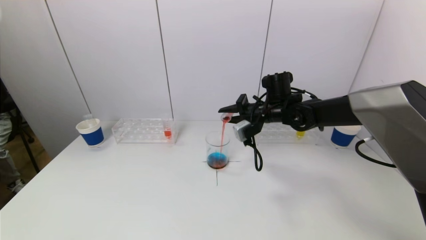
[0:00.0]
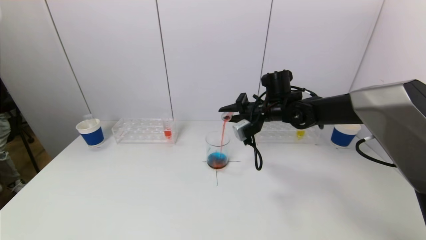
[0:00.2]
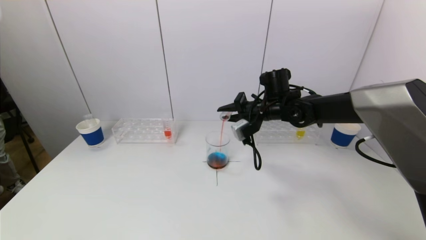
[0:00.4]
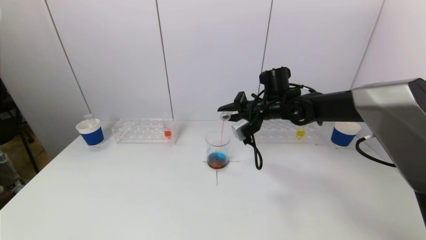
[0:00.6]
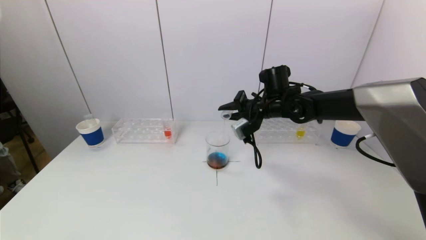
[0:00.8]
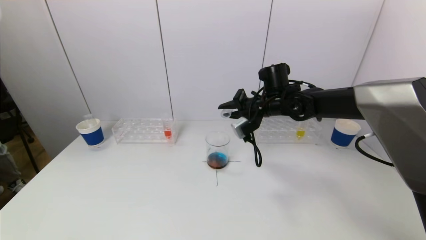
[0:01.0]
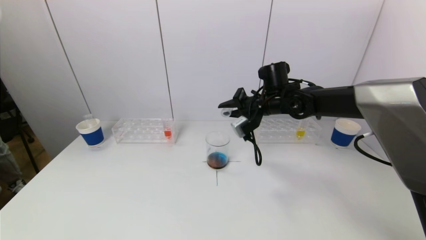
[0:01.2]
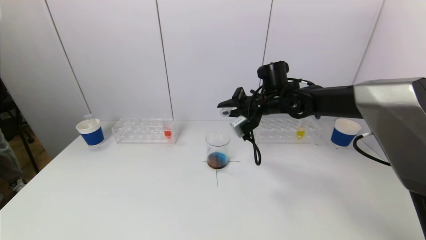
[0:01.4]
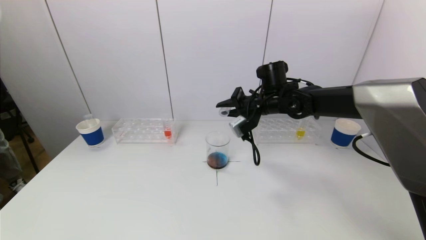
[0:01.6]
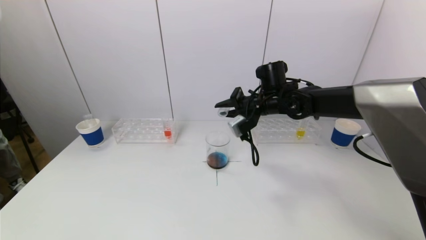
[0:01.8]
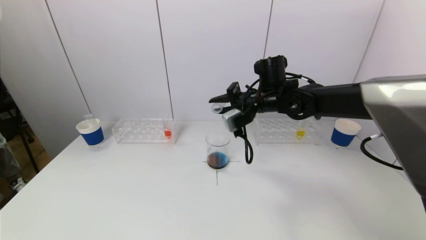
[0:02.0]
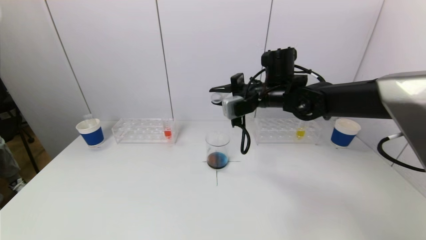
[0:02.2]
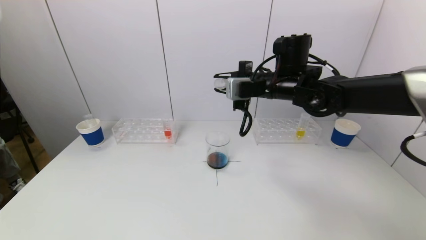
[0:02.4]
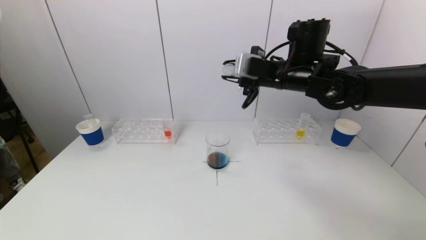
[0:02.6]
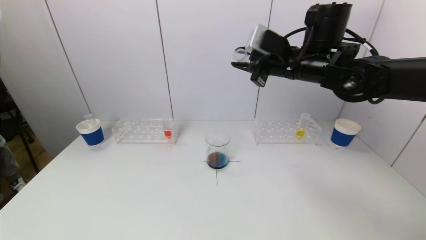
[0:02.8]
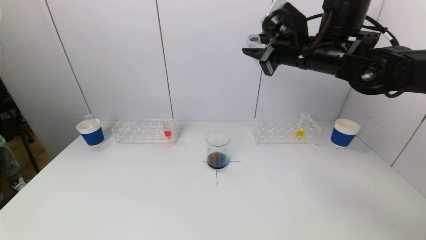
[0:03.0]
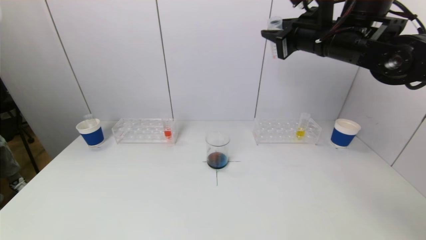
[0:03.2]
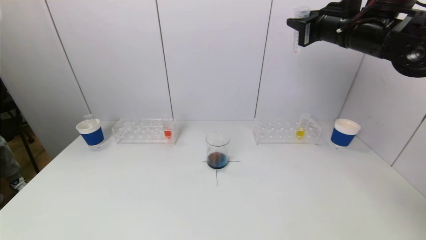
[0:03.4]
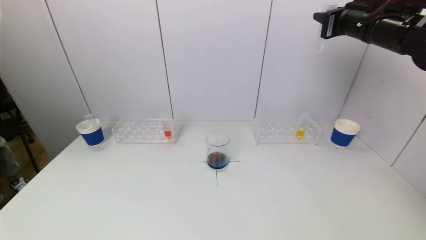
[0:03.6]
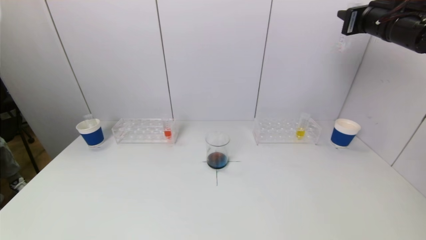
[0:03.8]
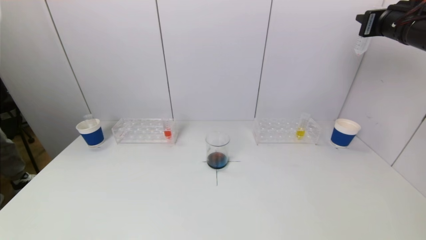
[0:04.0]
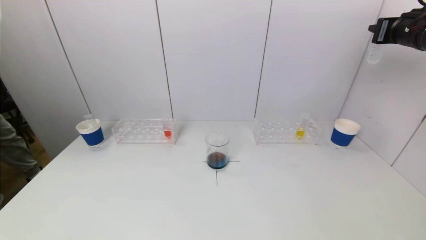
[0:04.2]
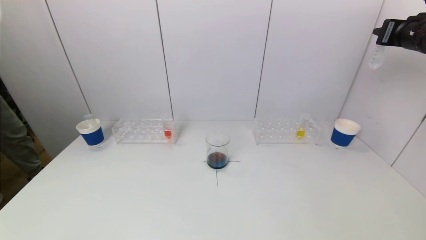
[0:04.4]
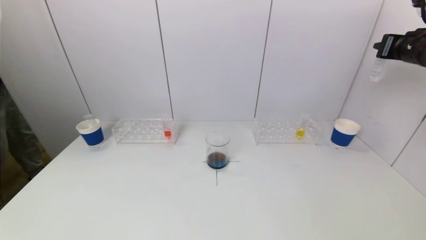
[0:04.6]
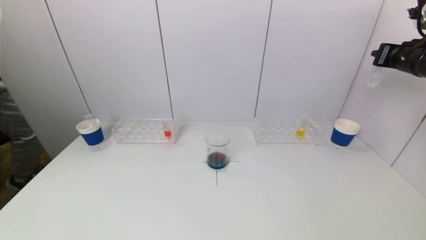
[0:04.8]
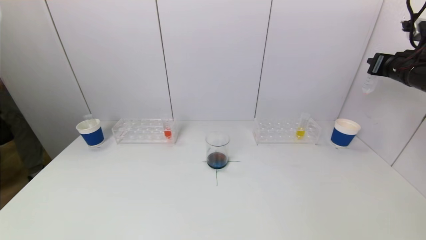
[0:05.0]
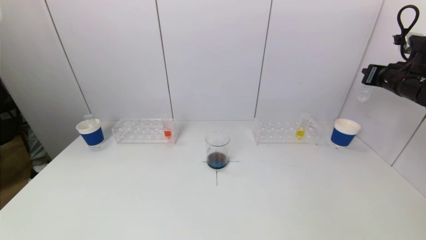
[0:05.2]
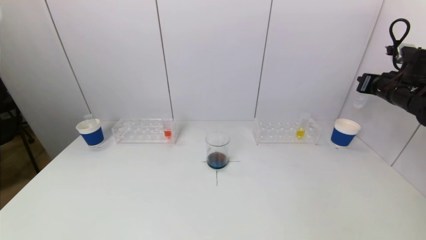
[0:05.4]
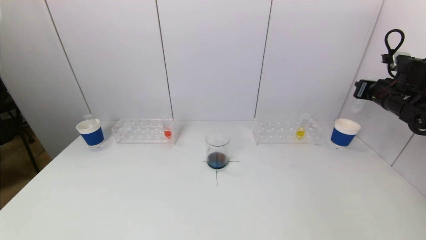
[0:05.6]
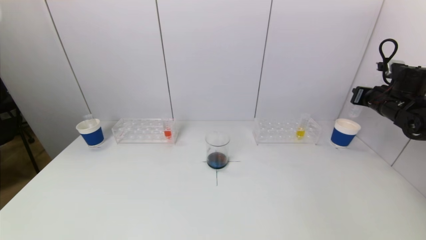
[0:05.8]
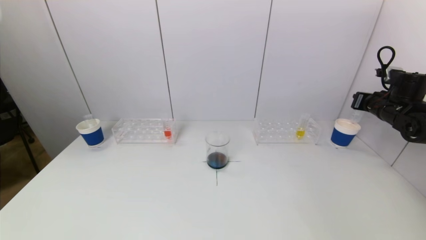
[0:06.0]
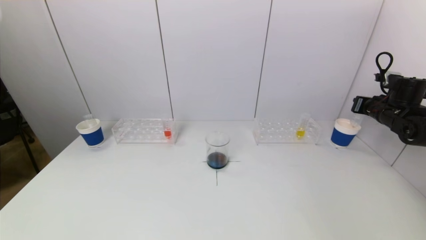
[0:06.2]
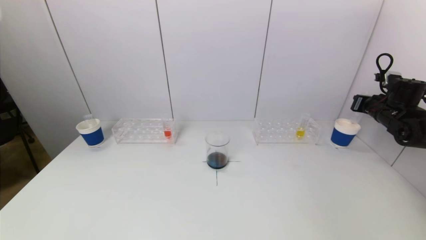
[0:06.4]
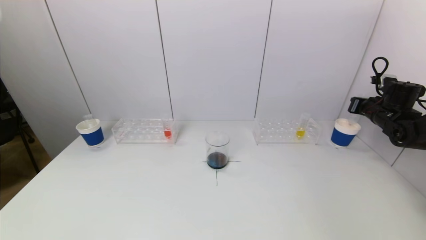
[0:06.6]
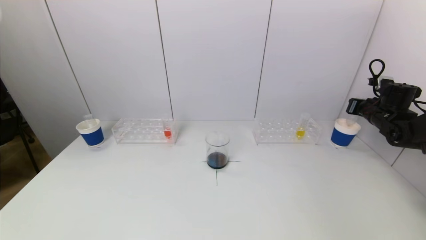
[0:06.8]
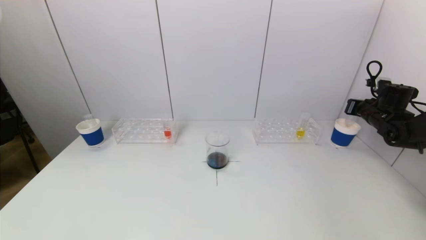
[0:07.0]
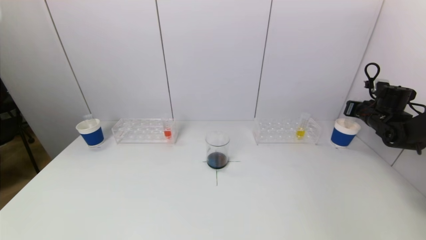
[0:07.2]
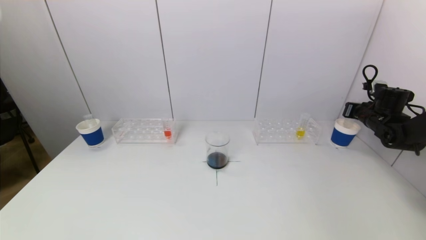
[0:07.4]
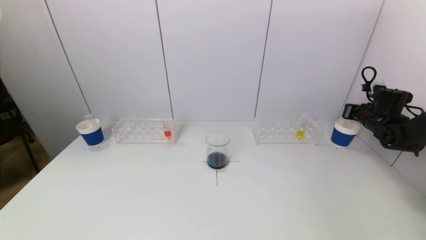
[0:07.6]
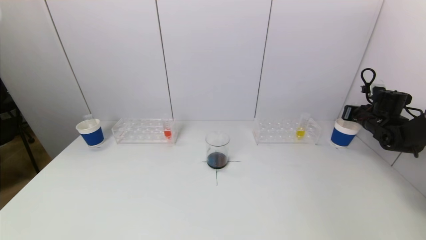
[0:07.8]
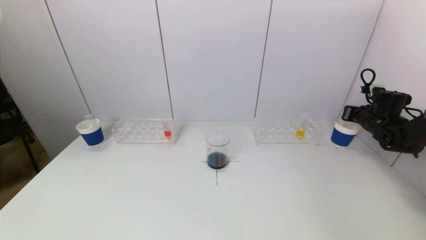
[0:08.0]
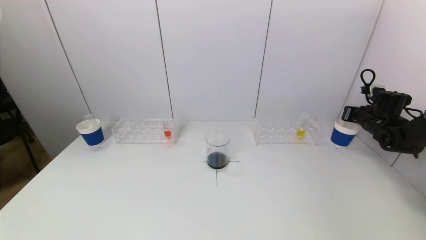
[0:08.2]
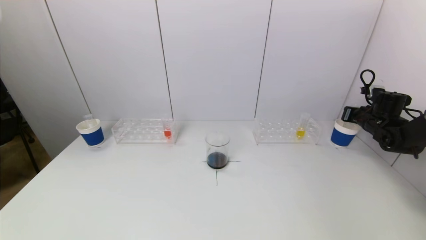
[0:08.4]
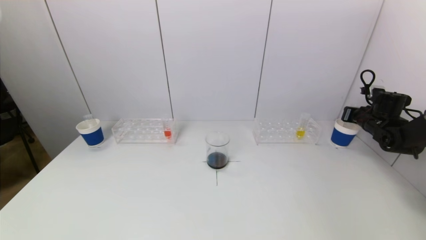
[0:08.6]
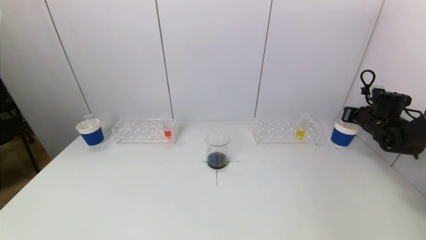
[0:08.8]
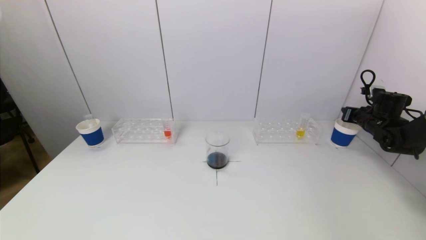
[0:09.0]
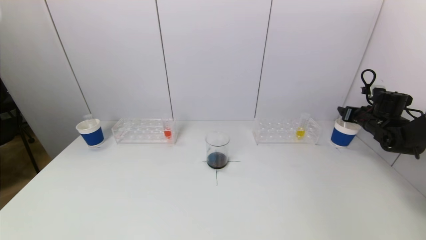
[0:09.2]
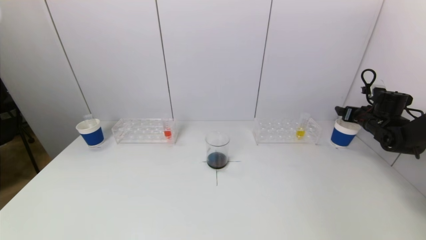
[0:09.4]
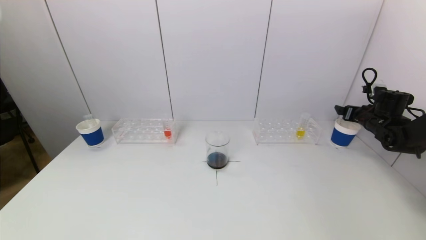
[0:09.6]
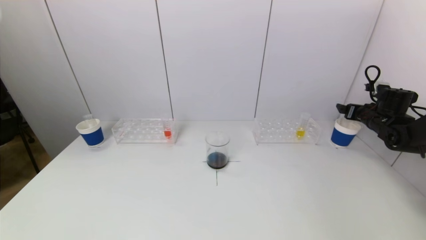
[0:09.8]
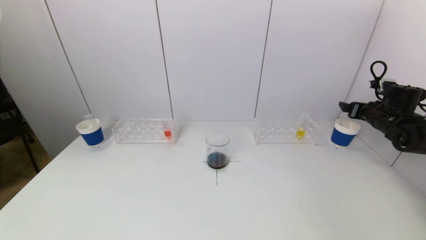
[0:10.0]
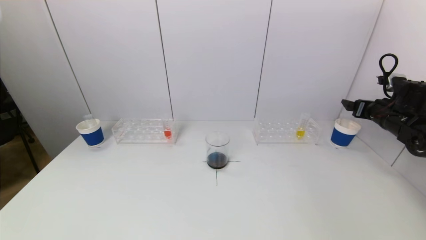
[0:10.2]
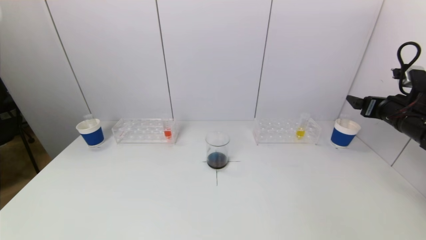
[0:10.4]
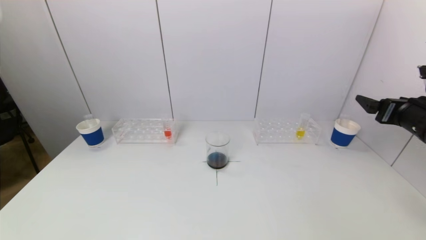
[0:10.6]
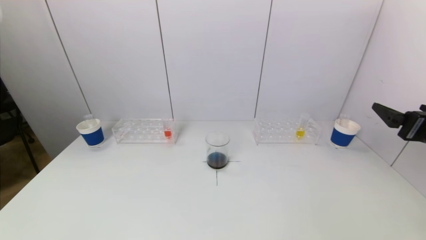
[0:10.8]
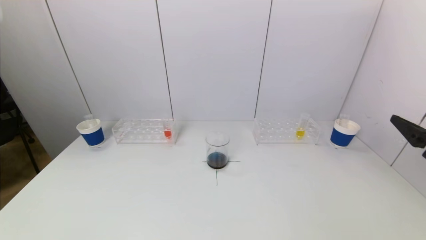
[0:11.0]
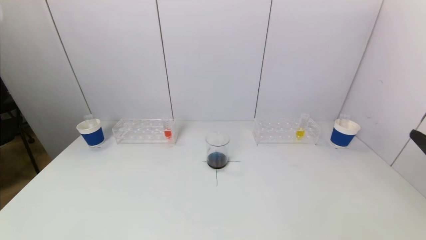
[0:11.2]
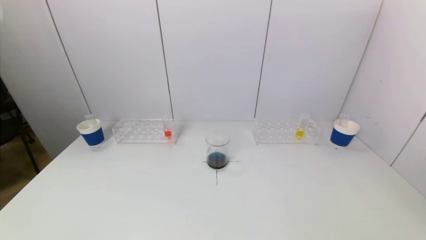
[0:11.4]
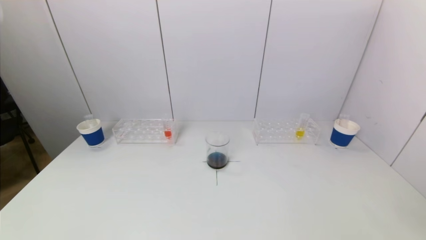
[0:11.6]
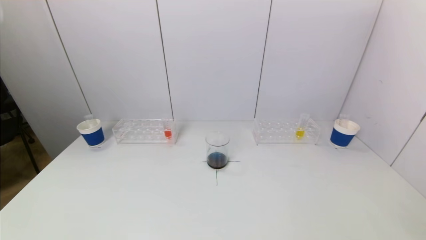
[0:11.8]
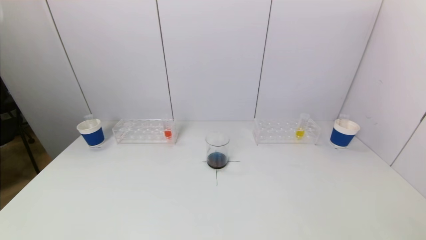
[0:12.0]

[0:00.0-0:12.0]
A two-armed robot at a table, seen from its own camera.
Task of the whole recording: pick up a test tube with pigment on left test tube rack and a test tube with pigment on right test tube rack by grippers and pour them into the beaker.
Step, 1.6 to 9.6 s: Place the test tube into the paper cup with the right gripper.
0.0 to 1.6 s: The grippers move only a little.
1.6 to 3.0 s: The right gripper is displaced upward and backward by about 15 cm.
3.0 to 4.4 s: The right gripper travels to the right by roughly 20 cm.
4.4 to 6.0 s: The right gripper is displaced downward by some 20 cm.
6.0 to 7.6 s: The right gripper travels downward by roughly 5 cm.
7.6 to 9.0 s: The two grippers keep their place.
9.0 to 10.4 s: The right gripper travels backward, upward and to the left by roughly 15 cm, and opens its fingers.
10.4 to 12.0 s: The right gripper travels backward by roughly 35 cm.

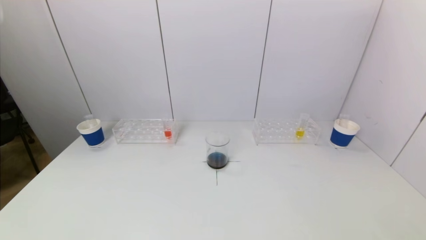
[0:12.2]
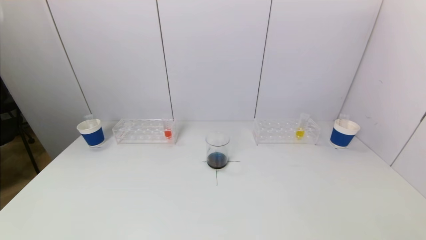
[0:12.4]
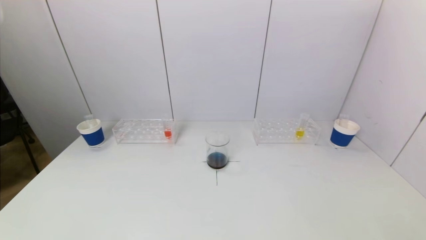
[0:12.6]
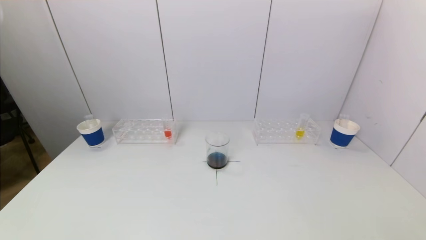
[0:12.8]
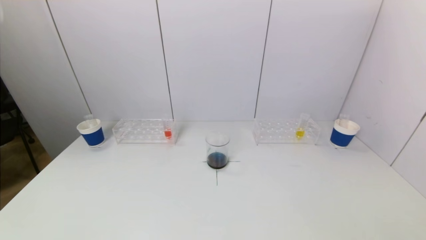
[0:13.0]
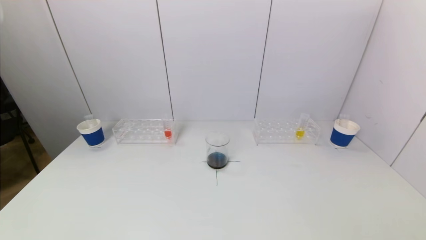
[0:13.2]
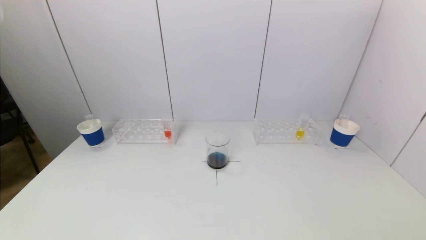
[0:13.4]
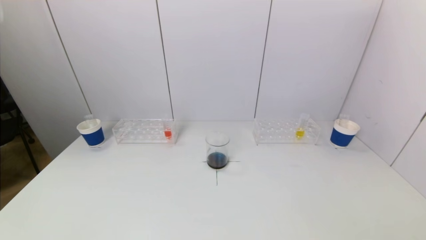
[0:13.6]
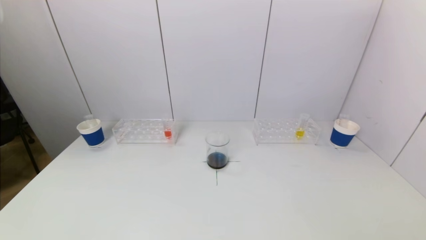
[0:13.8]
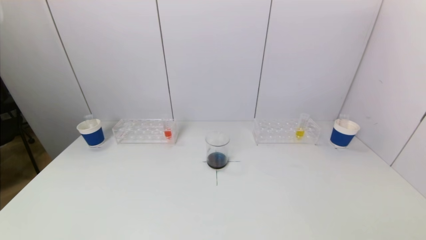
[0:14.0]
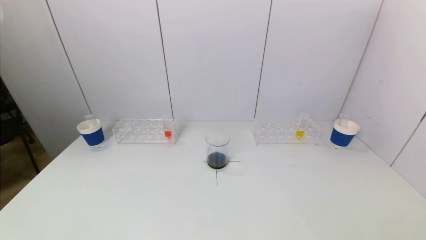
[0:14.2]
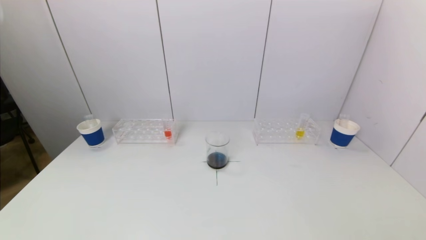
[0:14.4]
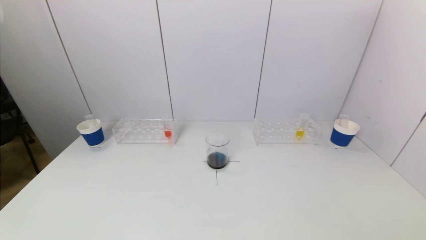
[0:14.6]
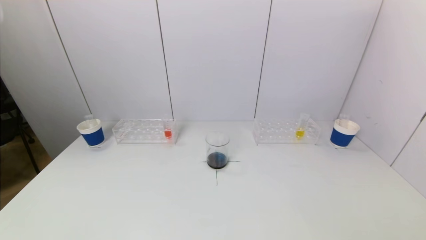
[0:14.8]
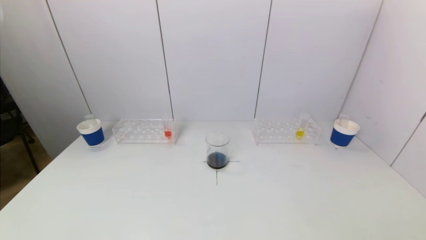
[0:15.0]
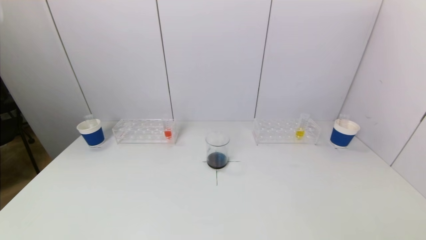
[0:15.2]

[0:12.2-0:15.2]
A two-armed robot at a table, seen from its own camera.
Task of the whole recording: pick up a test tube with pigment on left test tube rack and a test tube with pigment on right test tube rack by grippers and pour them into the beaker.
13.8 to 15.2 s: Both grippers stay about where they are.

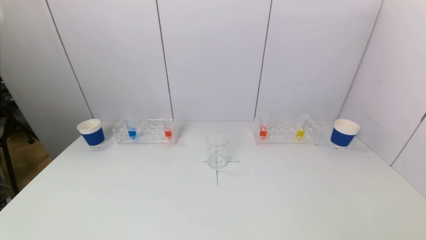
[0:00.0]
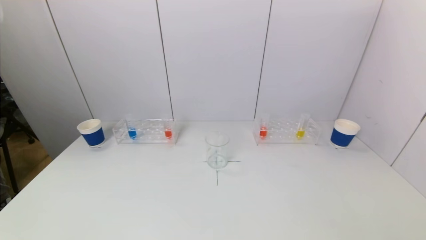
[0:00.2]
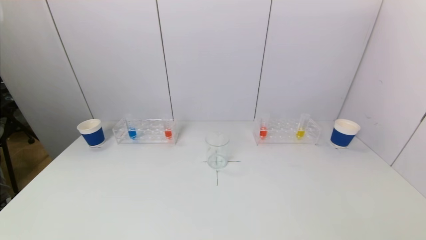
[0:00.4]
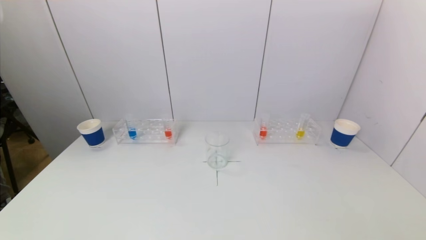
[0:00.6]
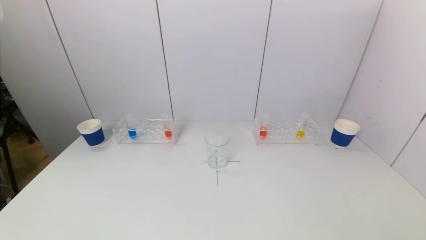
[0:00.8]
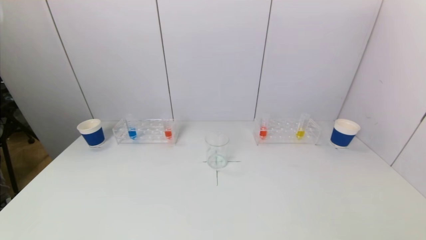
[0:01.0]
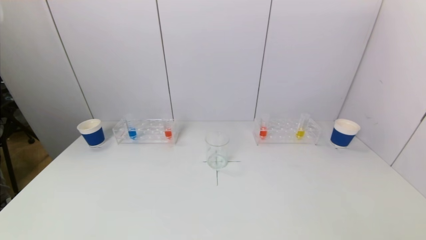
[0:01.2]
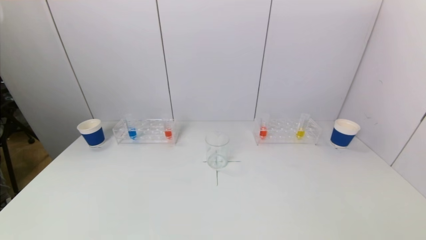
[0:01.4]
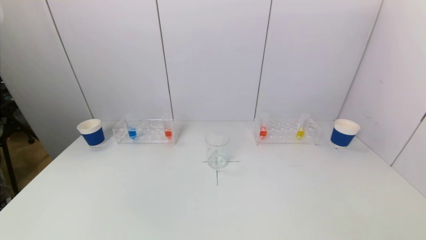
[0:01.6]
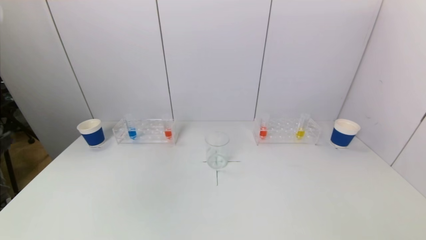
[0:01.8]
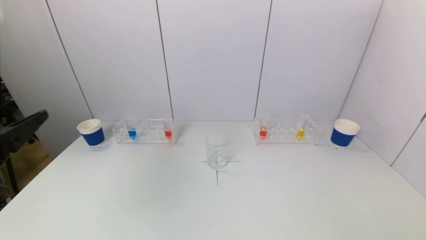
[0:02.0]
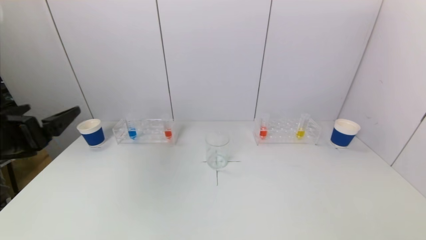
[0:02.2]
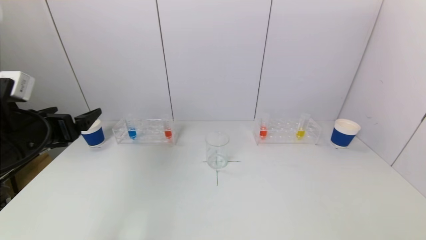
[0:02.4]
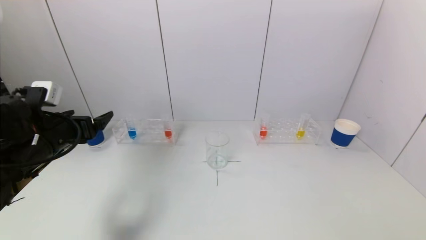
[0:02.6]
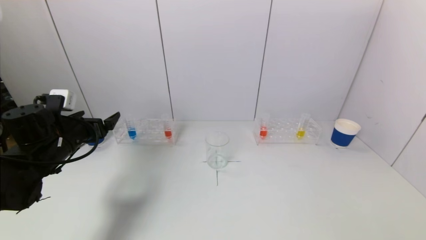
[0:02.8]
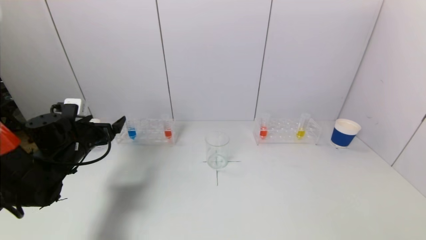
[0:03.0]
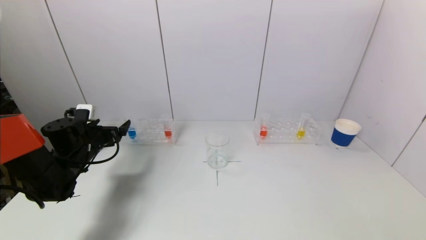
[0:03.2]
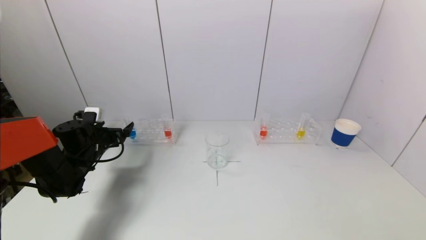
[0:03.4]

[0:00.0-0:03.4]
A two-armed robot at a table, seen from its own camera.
Task of the whole recording: pick up a test tube with pigment on left test tube rack and a test tube with pigment on right test tube rack by grippers and pour them into the beaker.
1.6 to 3.4 s: The left gripper moves forward and downward, approximately 40 cm.
